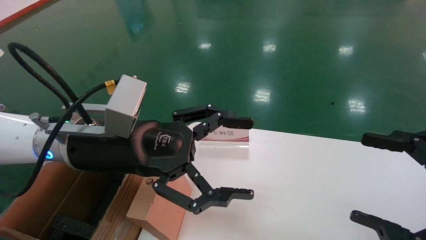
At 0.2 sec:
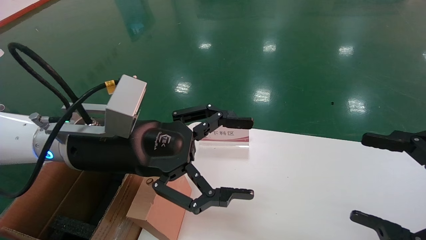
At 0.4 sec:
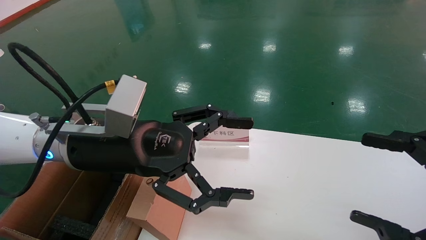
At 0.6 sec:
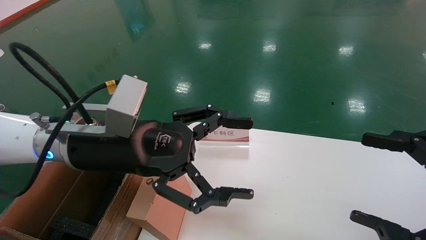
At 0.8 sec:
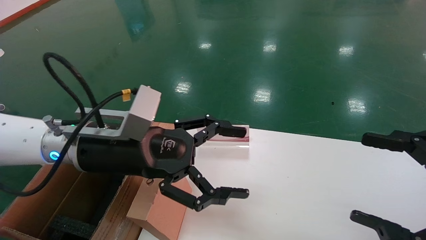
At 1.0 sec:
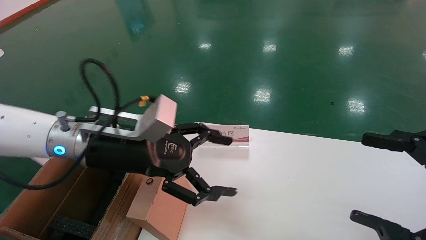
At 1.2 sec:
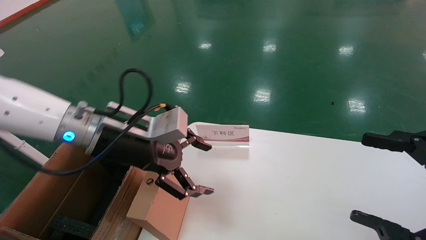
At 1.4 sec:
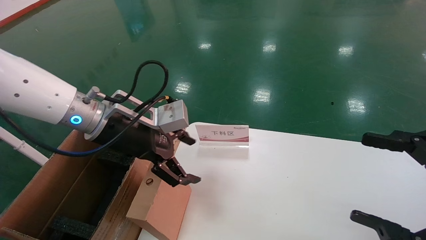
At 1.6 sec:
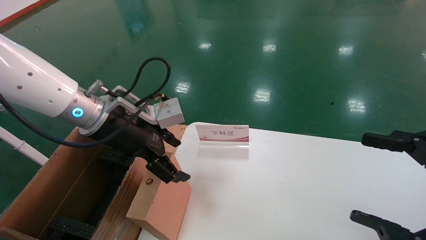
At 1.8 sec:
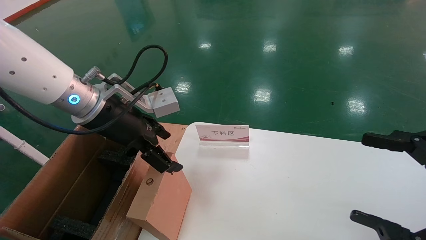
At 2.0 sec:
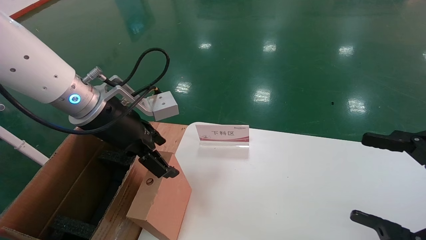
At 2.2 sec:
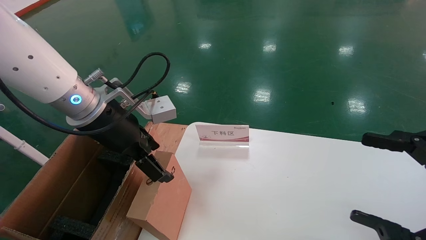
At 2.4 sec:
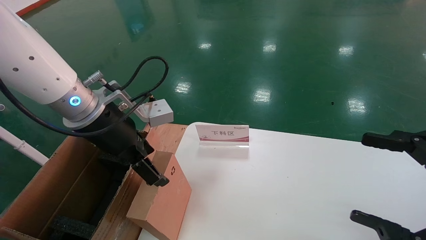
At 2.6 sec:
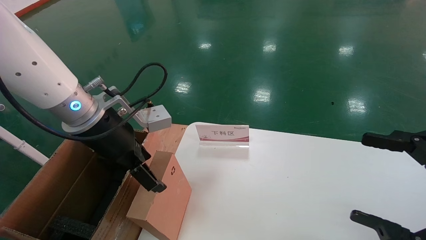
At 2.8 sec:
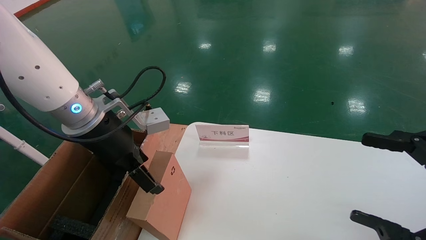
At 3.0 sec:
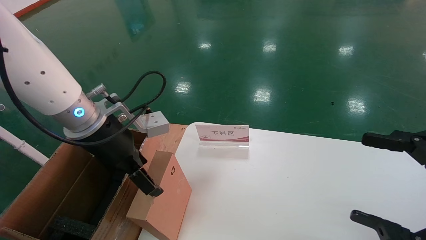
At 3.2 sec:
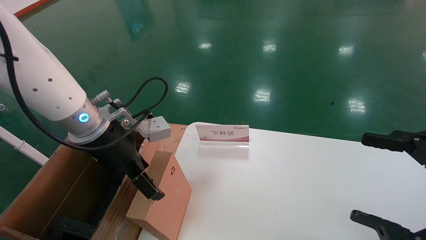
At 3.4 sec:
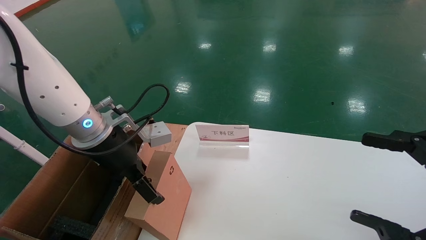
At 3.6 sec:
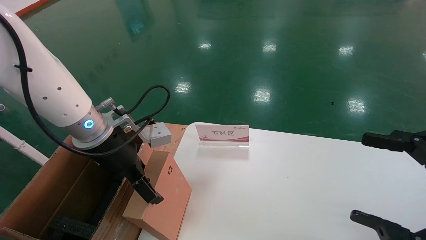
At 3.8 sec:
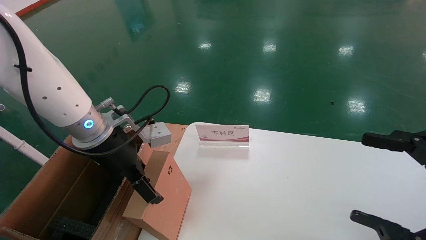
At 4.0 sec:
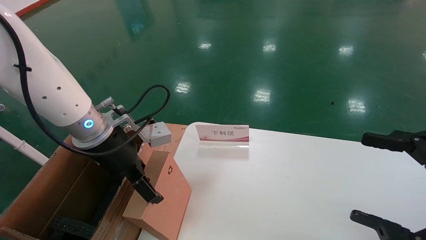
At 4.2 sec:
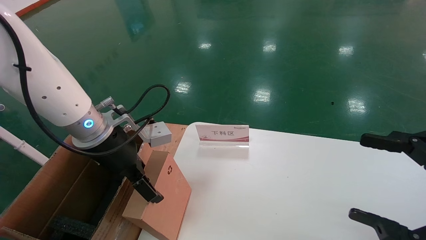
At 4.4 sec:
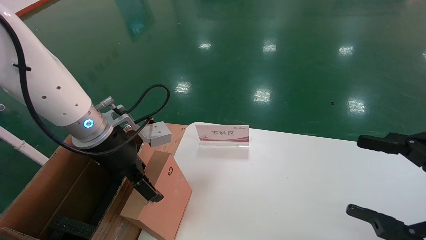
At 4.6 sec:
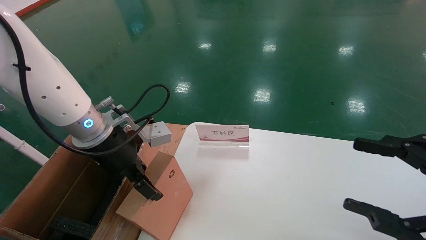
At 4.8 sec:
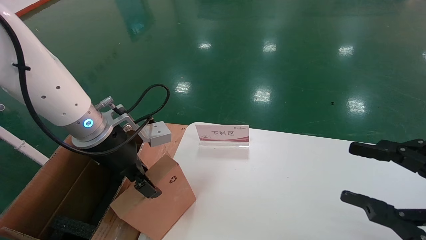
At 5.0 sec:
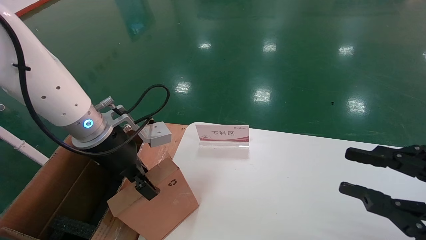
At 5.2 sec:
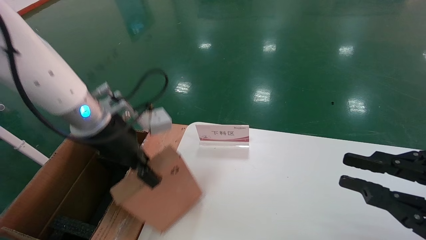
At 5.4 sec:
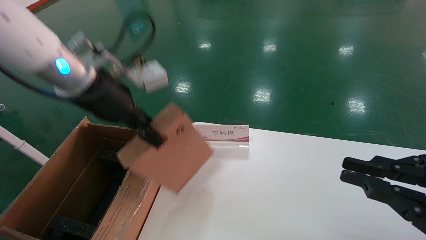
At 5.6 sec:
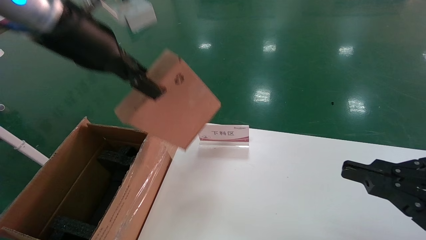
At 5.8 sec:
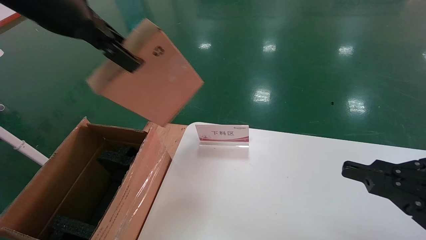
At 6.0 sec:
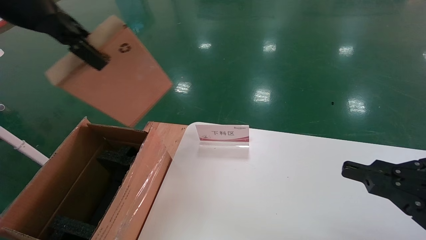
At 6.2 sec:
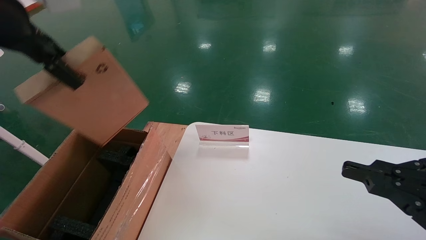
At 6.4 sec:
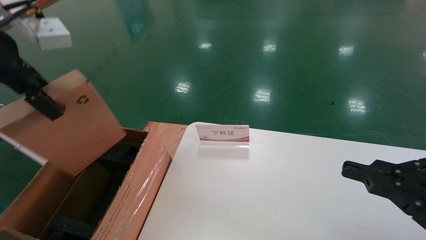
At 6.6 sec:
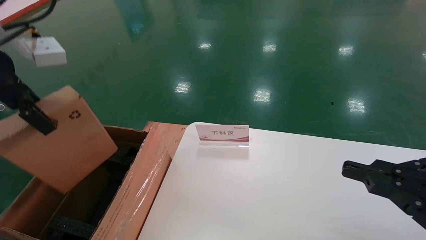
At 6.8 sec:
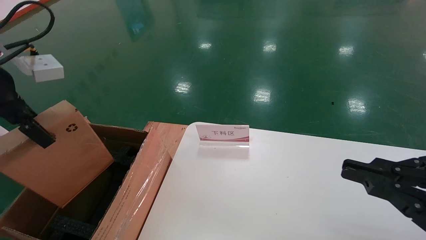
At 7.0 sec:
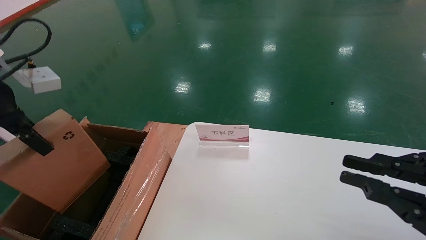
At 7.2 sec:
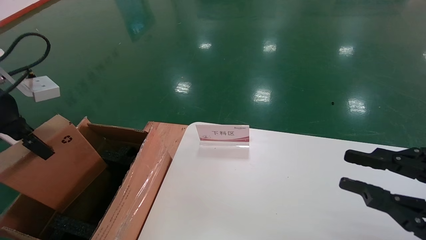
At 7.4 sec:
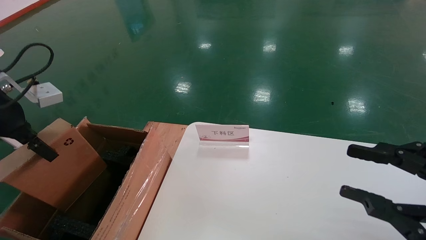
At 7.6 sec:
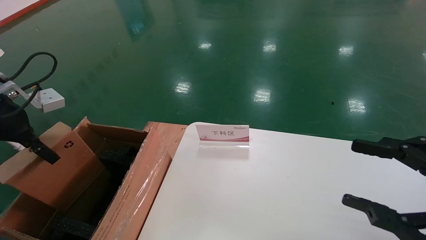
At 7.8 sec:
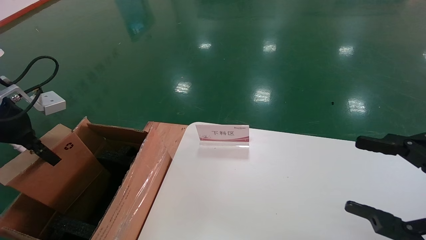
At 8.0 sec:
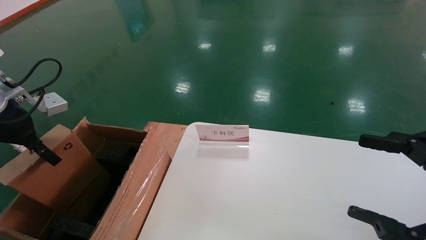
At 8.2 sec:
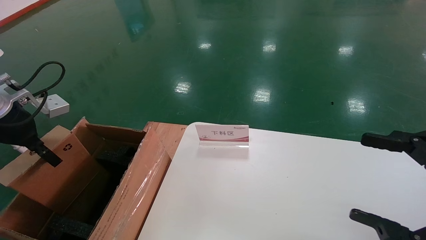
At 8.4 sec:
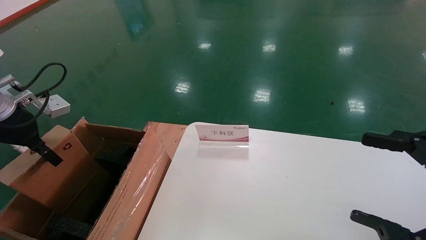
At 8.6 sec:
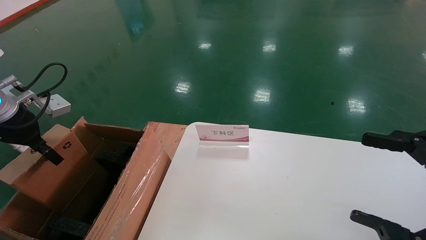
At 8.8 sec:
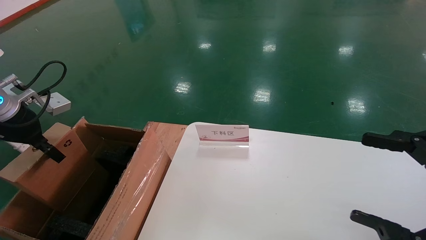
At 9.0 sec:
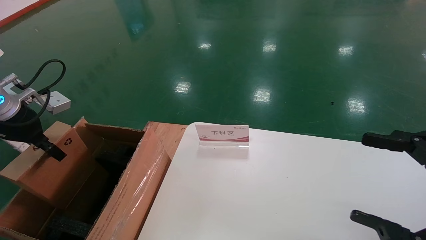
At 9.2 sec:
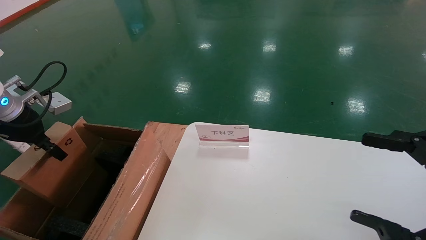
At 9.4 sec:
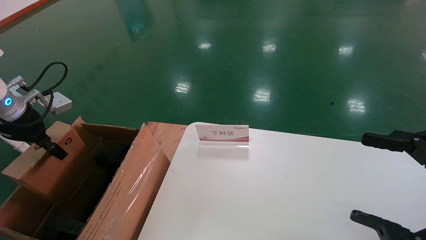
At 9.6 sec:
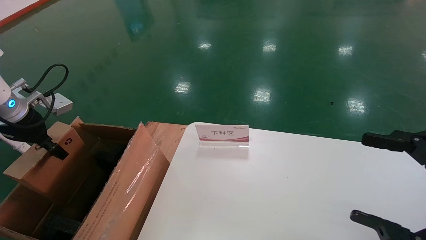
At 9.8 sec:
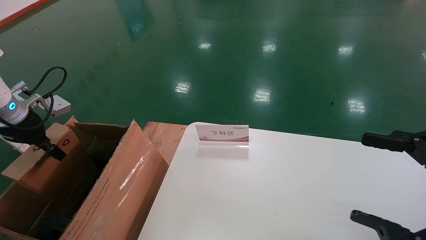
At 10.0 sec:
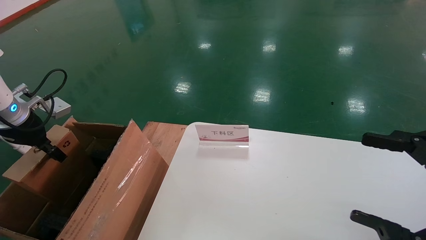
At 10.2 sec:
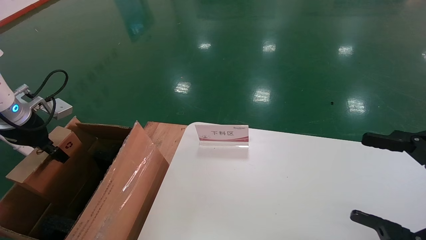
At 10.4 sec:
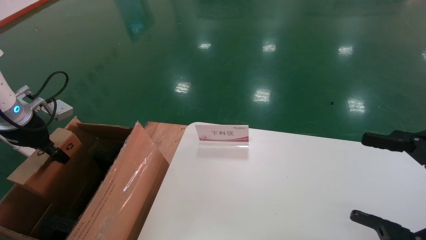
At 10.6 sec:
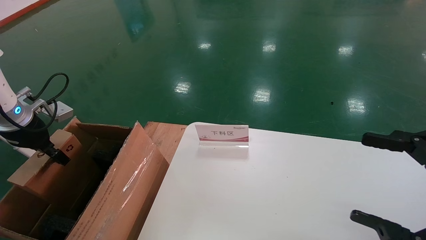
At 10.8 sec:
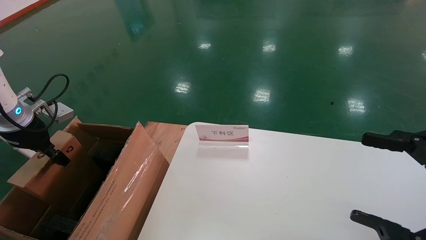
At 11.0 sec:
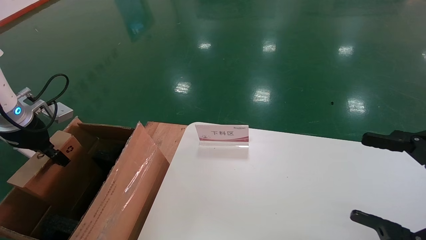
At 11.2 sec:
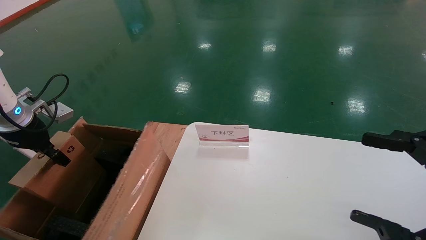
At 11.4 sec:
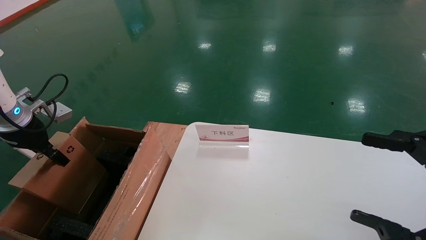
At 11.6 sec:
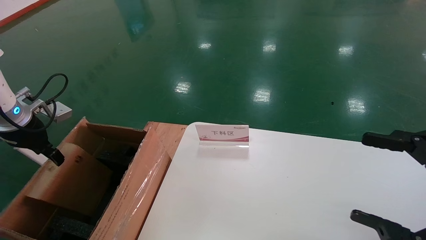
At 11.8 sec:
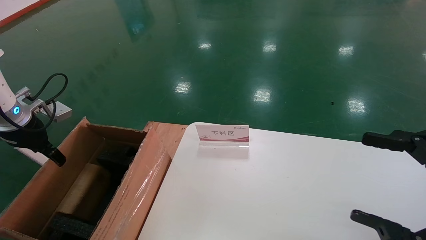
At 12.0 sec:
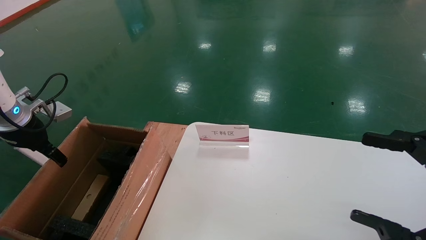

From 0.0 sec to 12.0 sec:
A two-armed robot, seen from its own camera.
Task of the whole recording: pick up the small cardboard box and load it into the large cardboard box.
Step, from 1.0 sec to 5.0 sec: Pick up the mouse and power cord box.
Step, from 5.2 sec to 11.8 sec: Place the mouse and power cord box into the case.
From 0.0 sec to 1.6 sec: The left gripper is displaced forward by approximately 5 cm.
From 3.0 sec to 4.4 sec: There are only small adjustments of the grippers.
From 4.4 sec to 6.0 sec: The right gripper closes up. Meanwhile the left gripper travels upward by roughly 20 cm, and closes up.
From 6.0 sec to 7.6 sec: The right gripper opens up. Meanwhile the left gripper travels downward and to the left by roughly 20 cm.
From 7.6 sec to 9.0 sec: The right gripper opens up.
From 9.0 sec to 10.4 sec: The left gripper shifts by approximately 5 cm.
From 10.4 sec to 12.0 sec: The left gripper opens up.

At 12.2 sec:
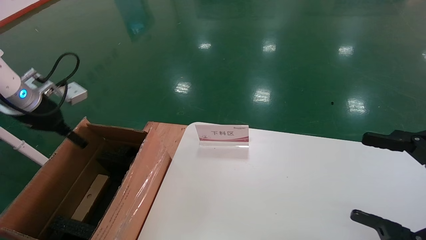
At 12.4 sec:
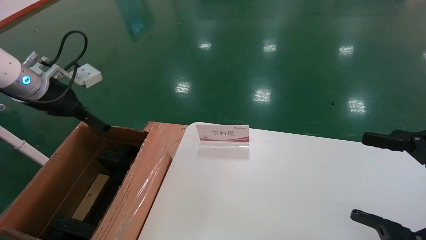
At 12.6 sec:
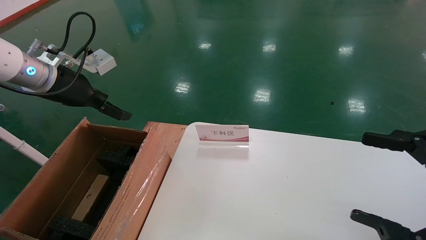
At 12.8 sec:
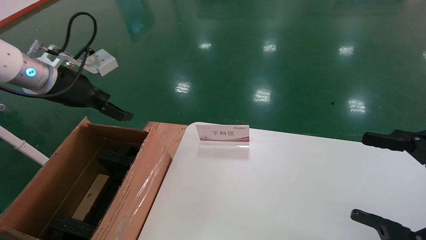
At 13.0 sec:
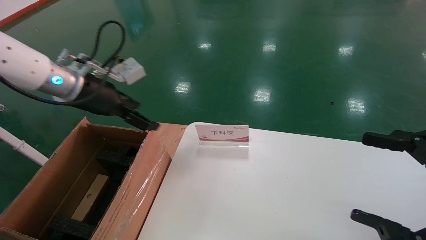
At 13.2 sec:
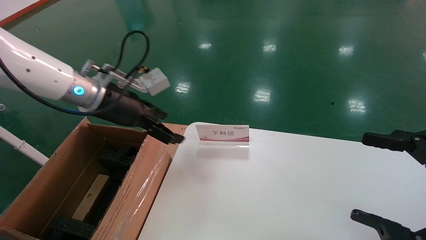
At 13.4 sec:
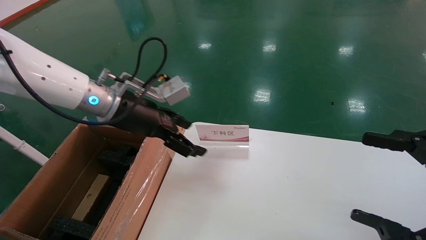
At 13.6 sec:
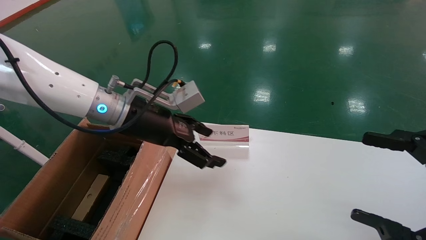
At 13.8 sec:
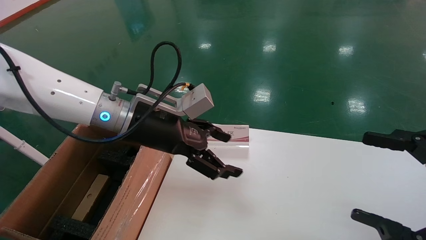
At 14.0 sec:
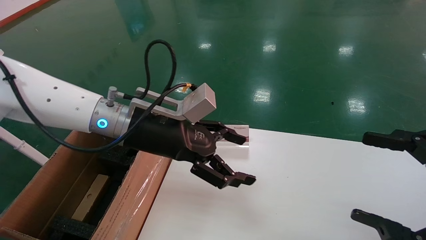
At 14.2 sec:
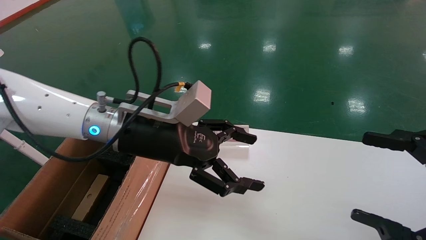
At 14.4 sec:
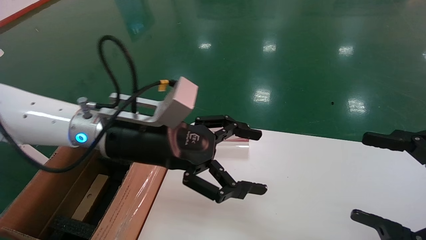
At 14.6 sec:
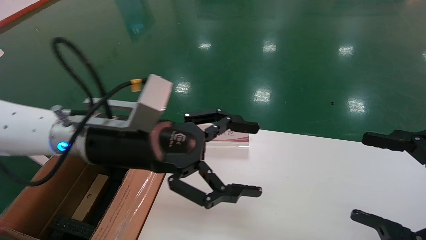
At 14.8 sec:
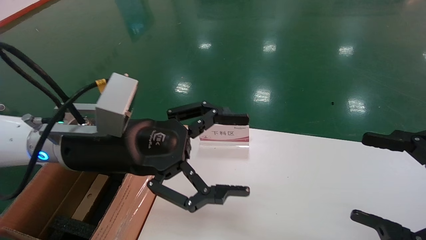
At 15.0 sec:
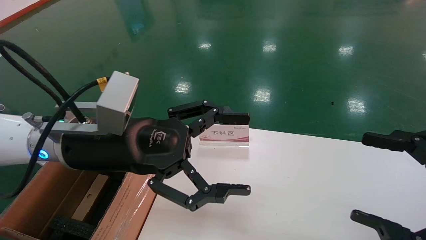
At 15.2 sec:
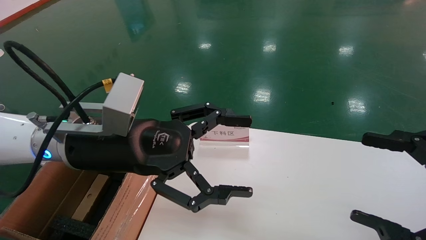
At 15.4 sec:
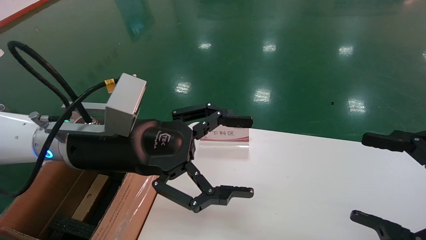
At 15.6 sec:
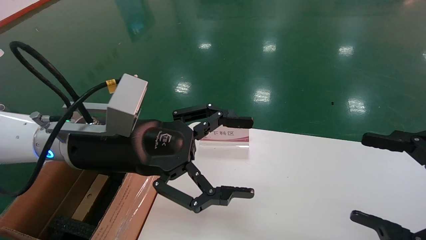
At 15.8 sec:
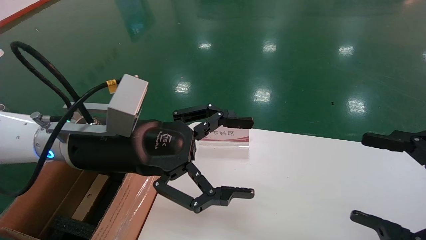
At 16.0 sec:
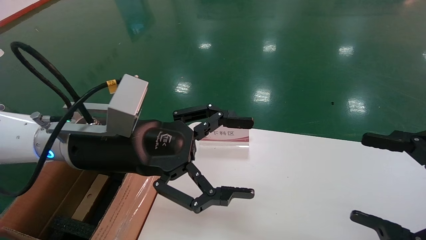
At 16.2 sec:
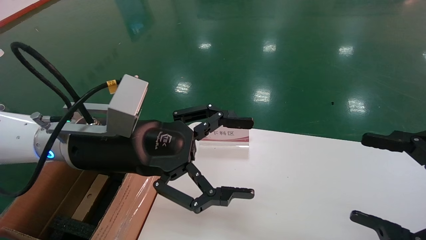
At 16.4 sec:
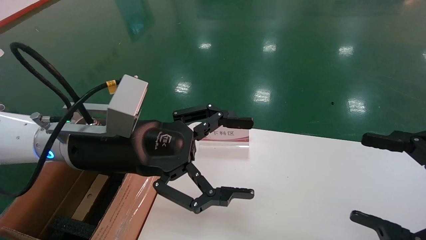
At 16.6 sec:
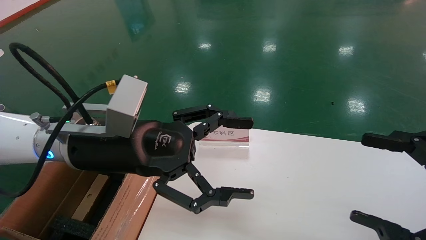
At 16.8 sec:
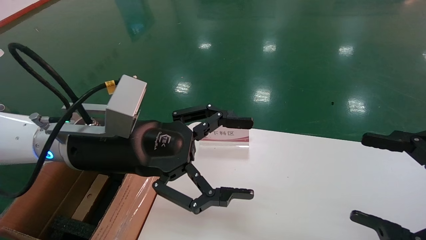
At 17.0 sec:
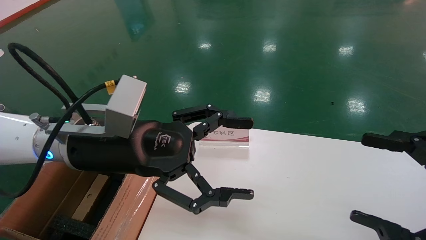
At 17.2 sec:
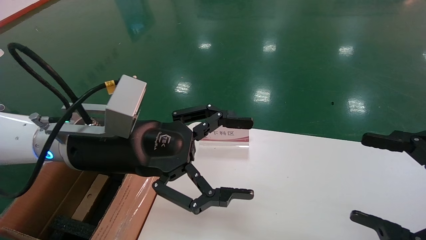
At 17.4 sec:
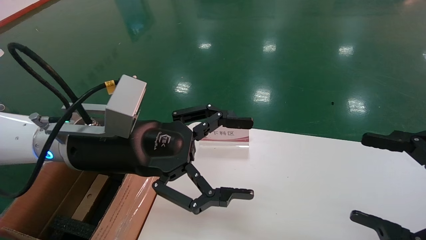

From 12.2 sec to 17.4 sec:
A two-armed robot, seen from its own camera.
Task of the whole recording: pick up the small cardboard box and load it into the large cardboard box.
From 12.2 sec to 14.0 sec: The left gripper moves to the right, about 25 cm.
From 14.0 sec to 15.6 sec: The left gripper shifts roughly 5 cm backward.
From 15.6 sec to 17.4 sec: The two grippers keep their place.
